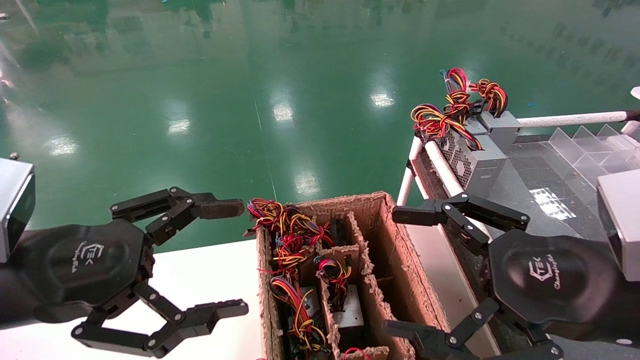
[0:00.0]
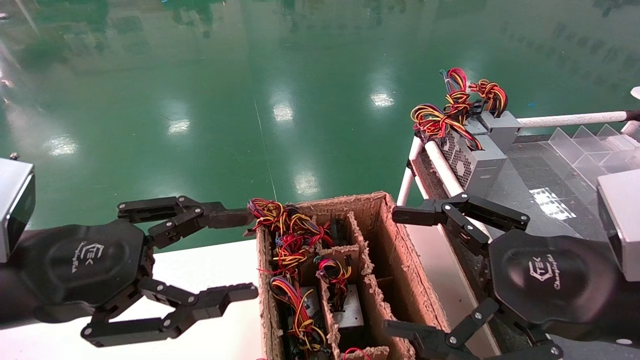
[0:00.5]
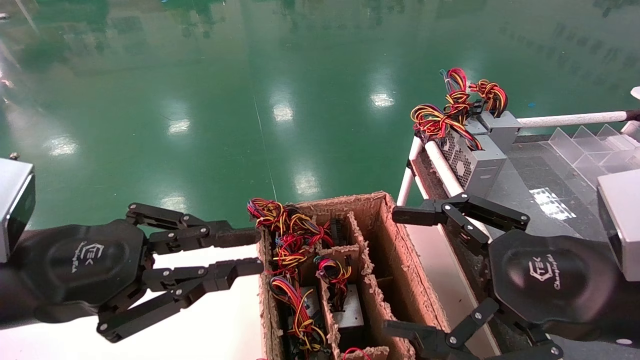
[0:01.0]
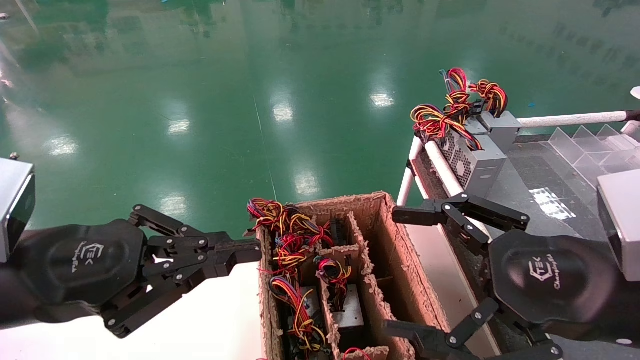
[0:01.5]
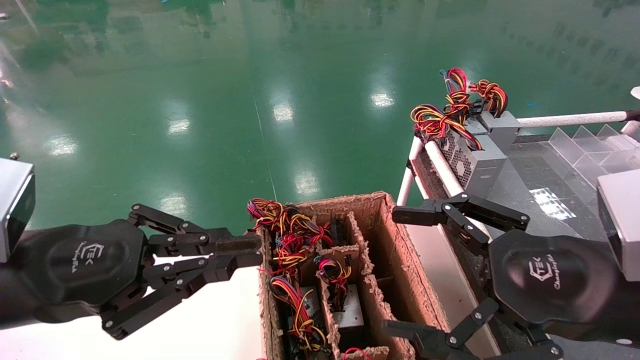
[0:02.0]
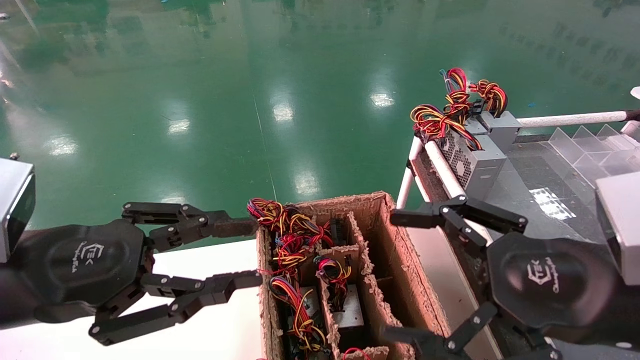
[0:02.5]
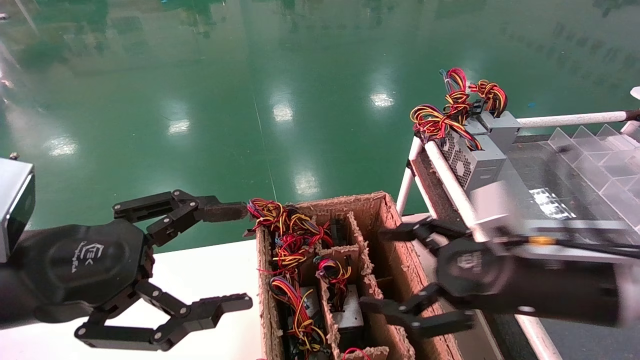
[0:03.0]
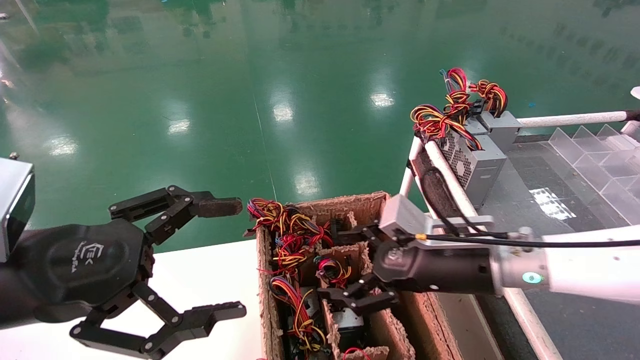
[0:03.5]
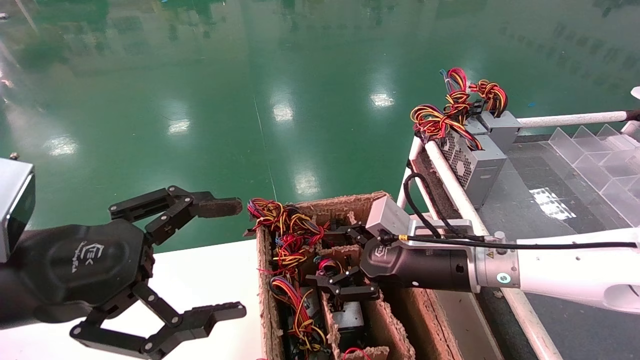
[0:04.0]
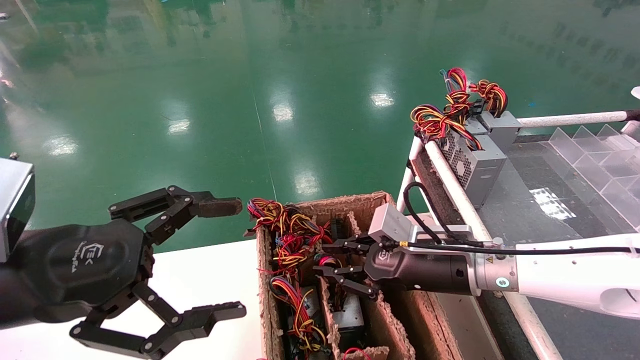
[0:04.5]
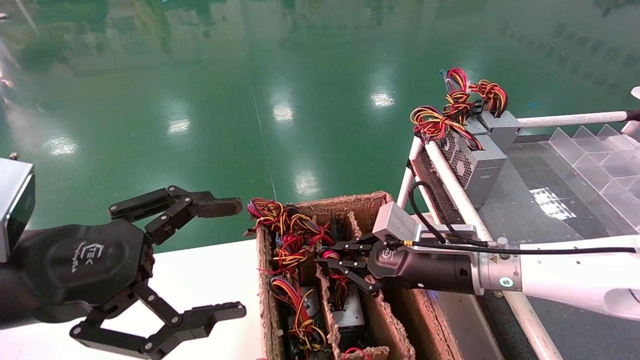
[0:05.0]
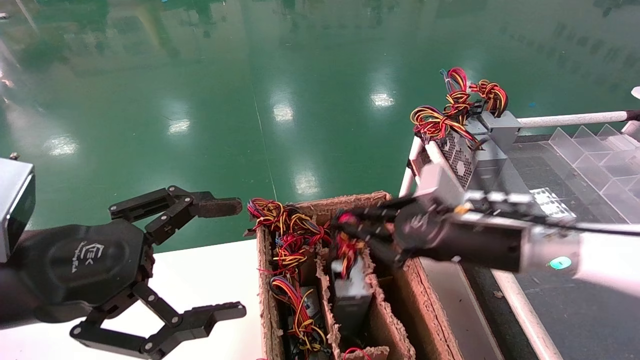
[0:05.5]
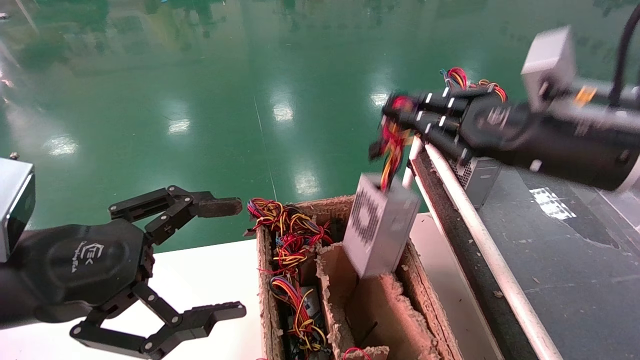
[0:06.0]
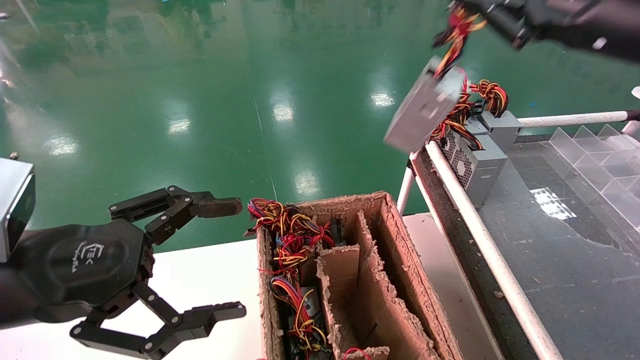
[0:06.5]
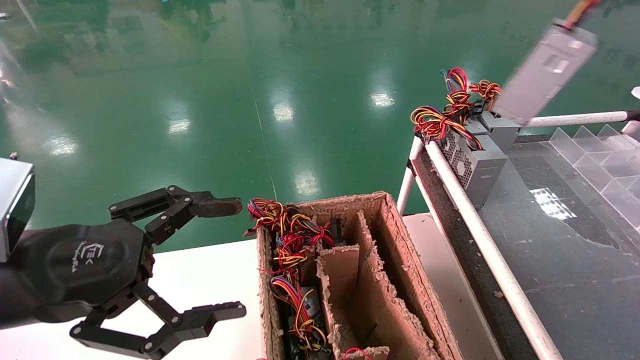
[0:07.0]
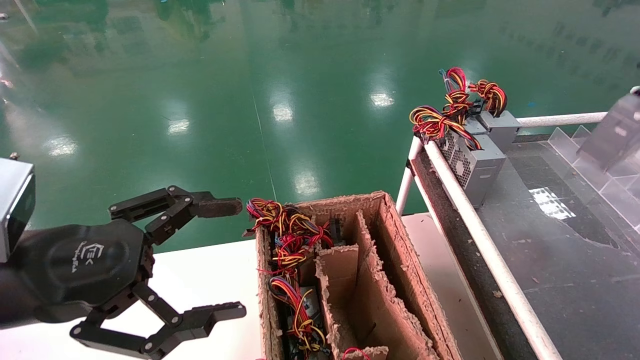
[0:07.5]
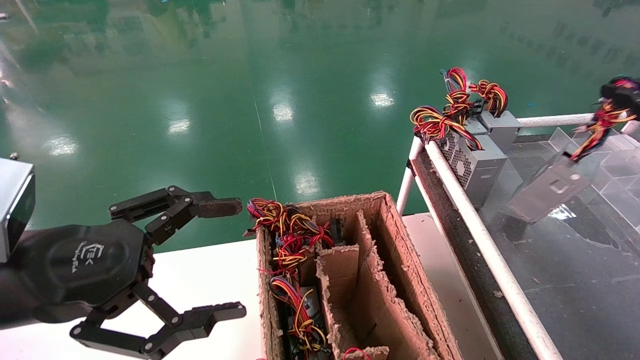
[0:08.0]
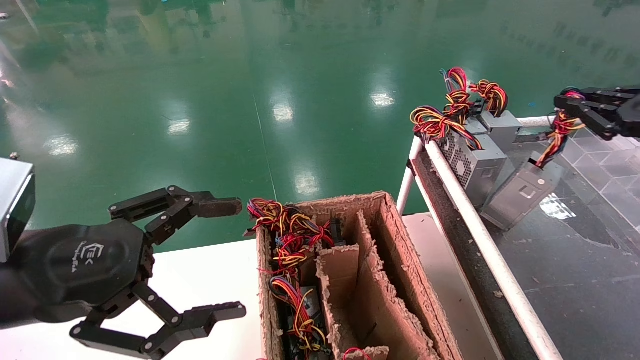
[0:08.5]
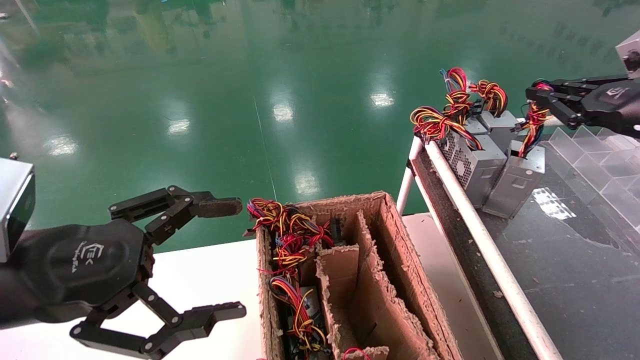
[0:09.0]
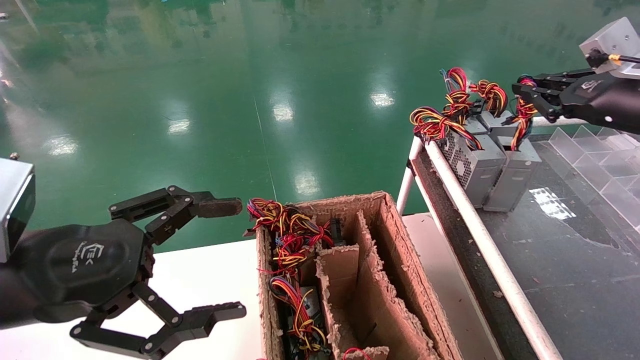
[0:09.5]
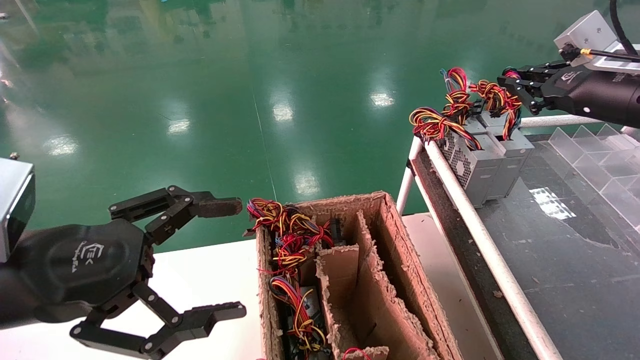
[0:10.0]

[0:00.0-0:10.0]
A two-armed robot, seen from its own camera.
Step, 0:01.5 to 0:04.5: Grab and lift the power supply from the large box.
0:00.0 to 0:02.0: The left gripper closes up.
0:02.0 to 0:04.0: The left gripper opens. The right gripper heads forward, to the left and downward, covering approximately 20 cm.
0:04.0 to 0:06.0: The right gripper moves upward and to the right, about 20 cm, and closes.
0:06.0 to 0:08.0: The right gripper moves to the right, some 25 cm.
0:08.0 to 0:10.0: The right gripper moves to the left and forward, some 15 cm.

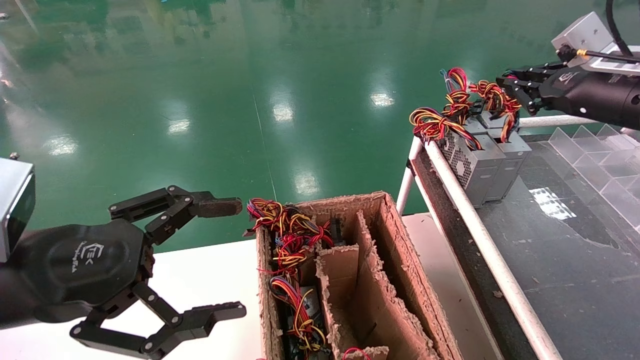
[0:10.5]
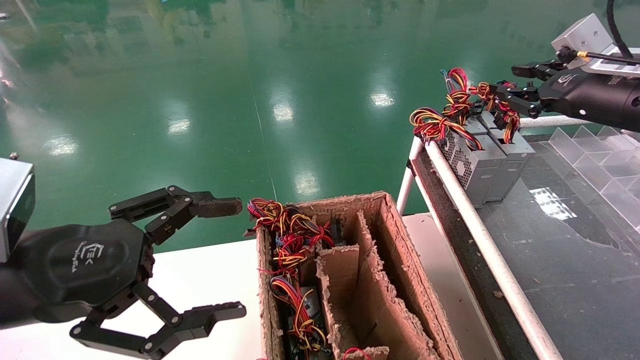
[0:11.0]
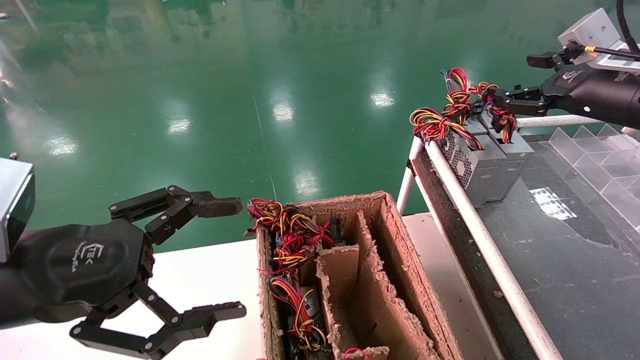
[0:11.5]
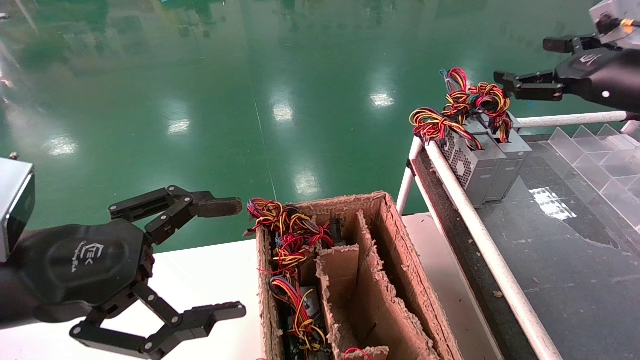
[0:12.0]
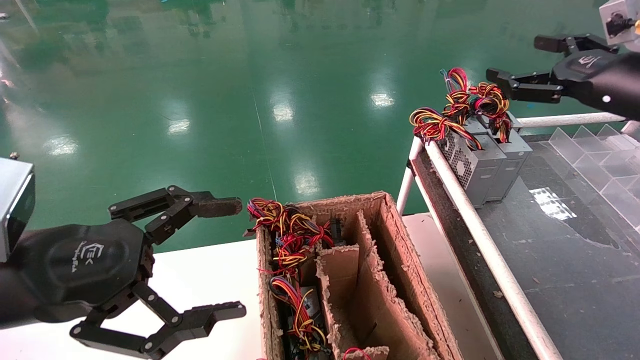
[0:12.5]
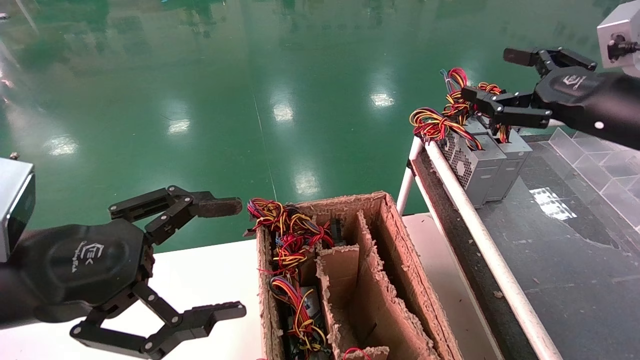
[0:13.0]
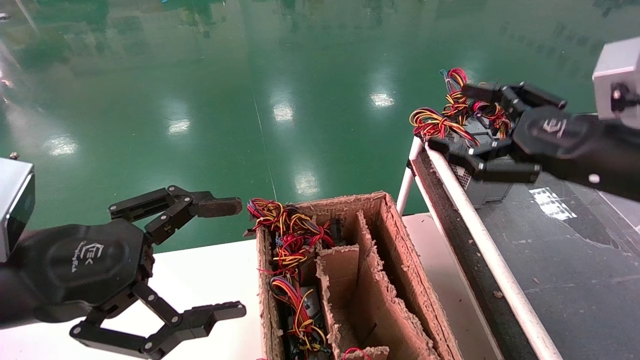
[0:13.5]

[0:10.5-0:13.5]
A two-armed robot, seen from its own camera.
0:10.5 to 0:12.0: The right gripper opens.
0:12.0 to 0:13.5: The right gripper goes some 15 cm backward, to the left and downward.
